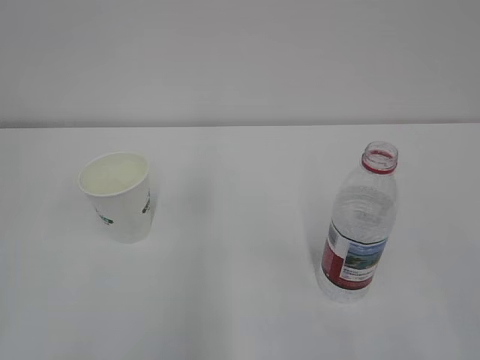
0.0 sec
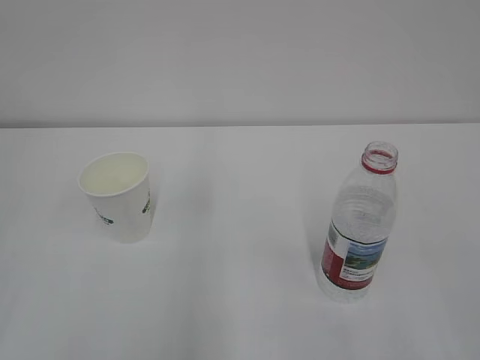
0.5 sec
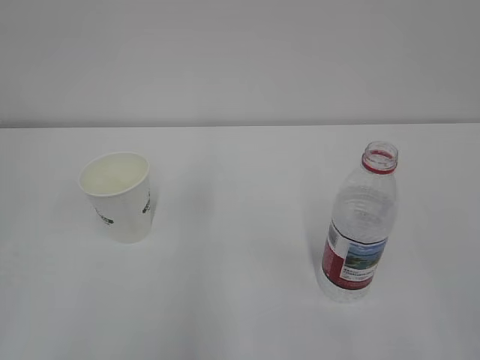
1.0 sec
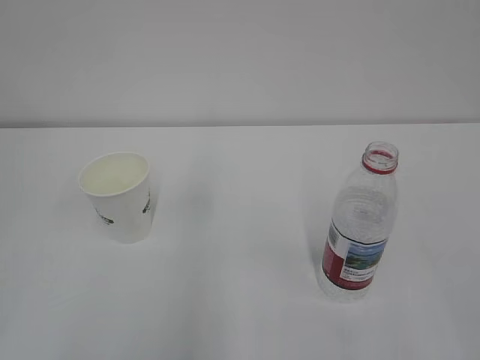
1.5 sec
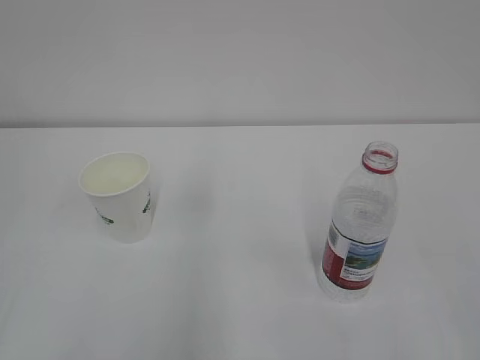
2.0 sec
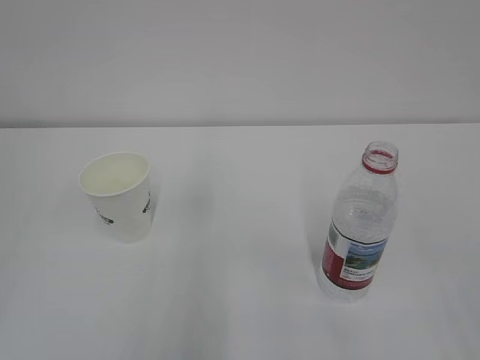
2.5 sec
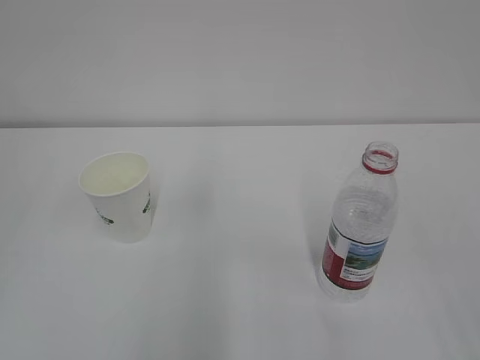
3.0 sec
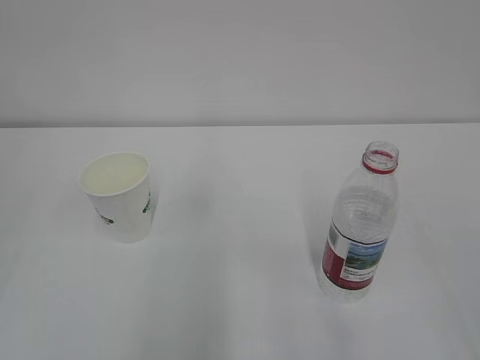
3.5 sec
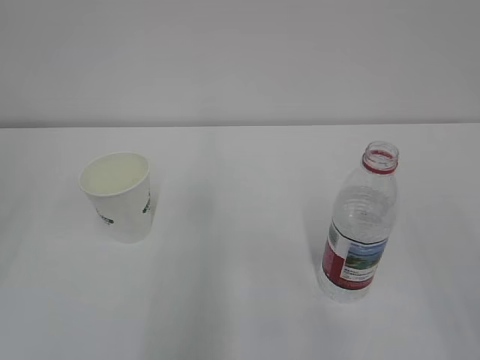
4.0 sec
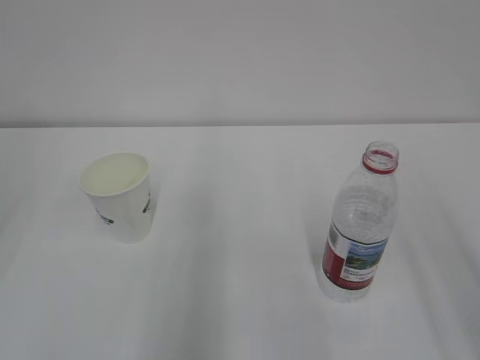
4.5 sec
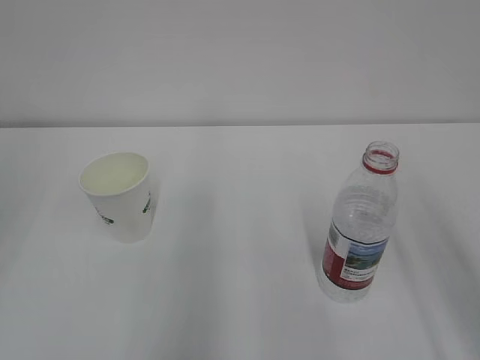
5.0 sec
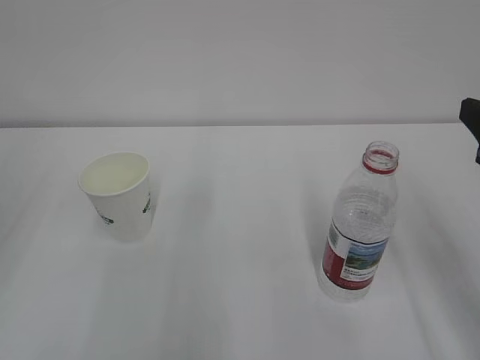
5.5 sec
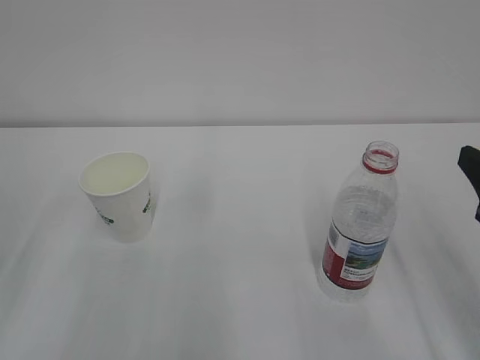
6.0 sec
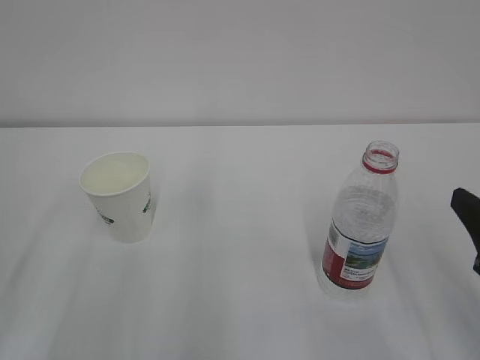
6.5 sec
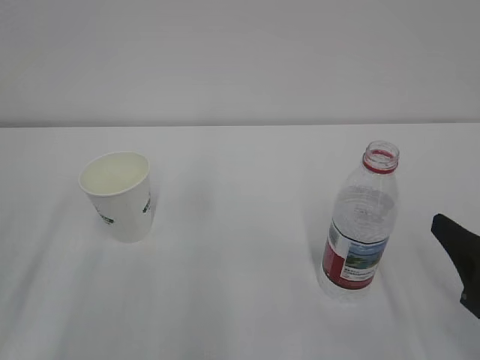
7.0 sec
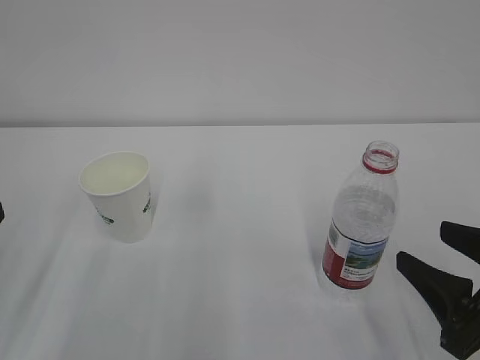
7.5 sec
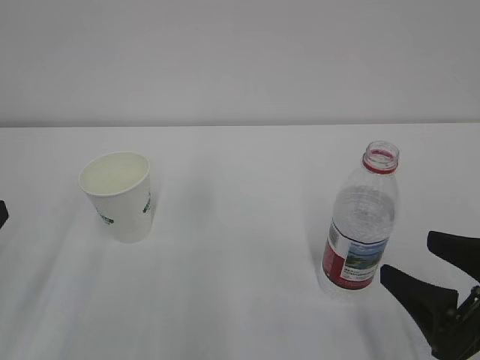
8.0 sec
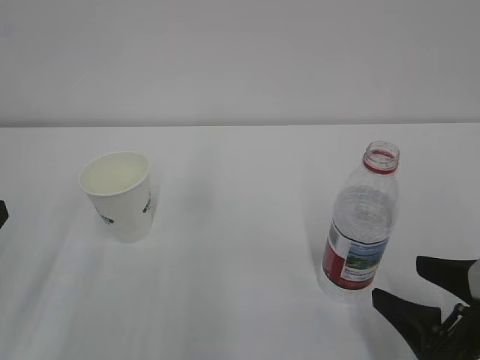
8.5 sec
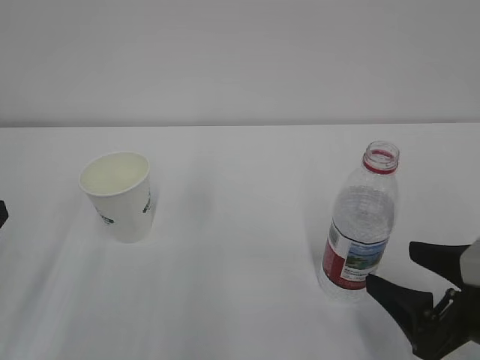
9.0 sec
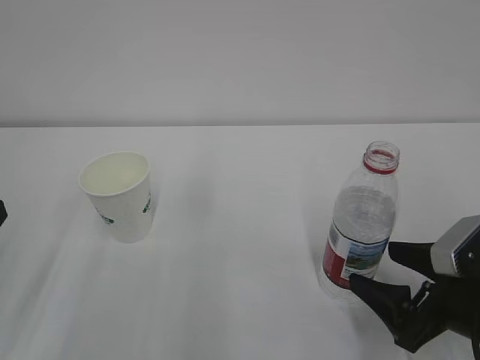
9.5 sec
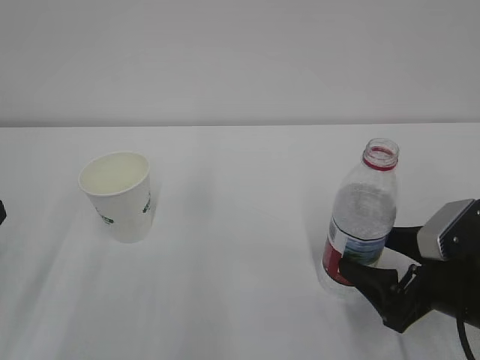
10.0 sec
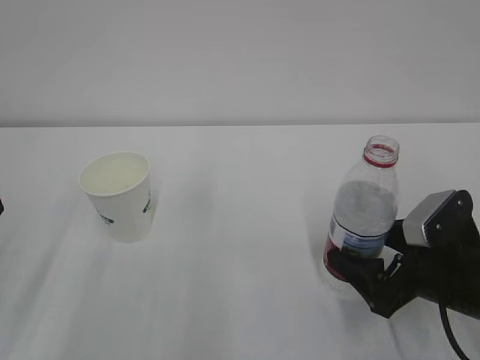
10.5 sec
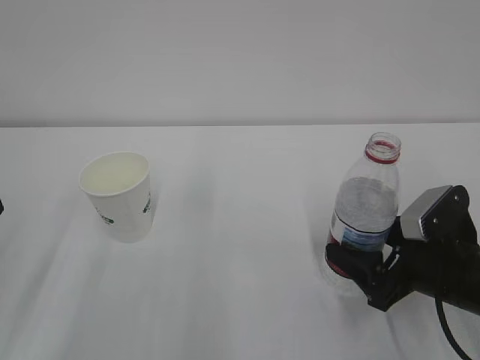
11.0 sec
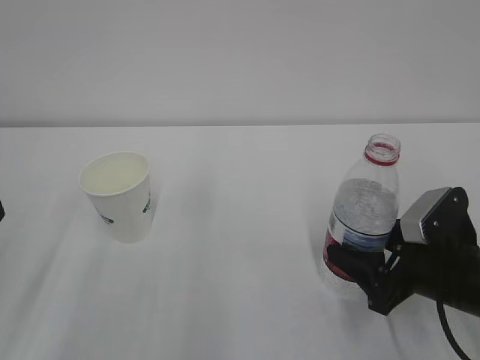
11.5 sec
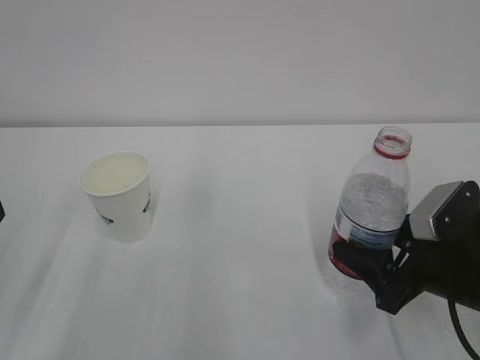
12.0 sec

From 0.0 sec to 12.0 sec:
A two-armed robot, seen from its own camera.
From 6.0 sec to 8.0 sec: The right gripper shifts about 5 cm downward, and opens.
From 8.0 sec to 10.0 sec: The right gripper goes roughly 5 cm forward.
From 10.0 sec to 12.0 sec: The right gripper closes its fingers.

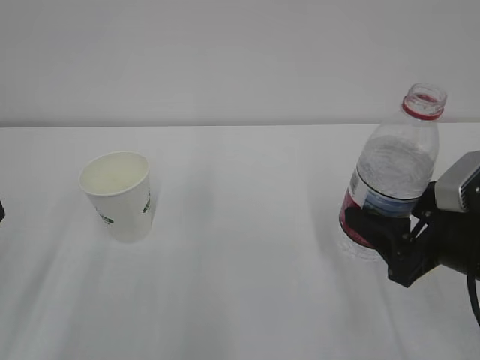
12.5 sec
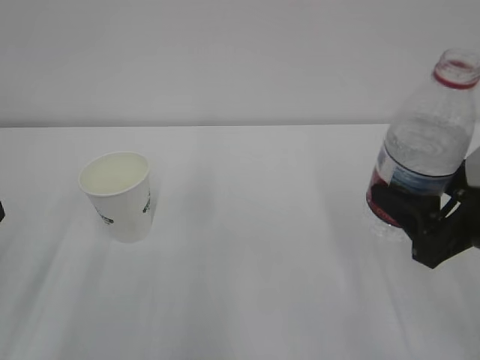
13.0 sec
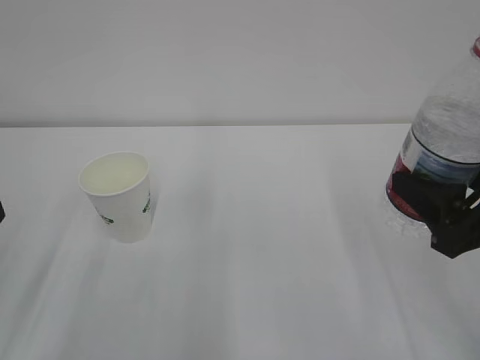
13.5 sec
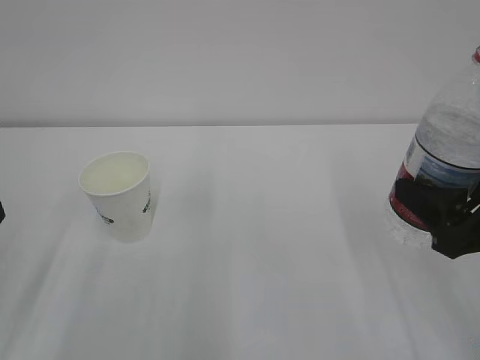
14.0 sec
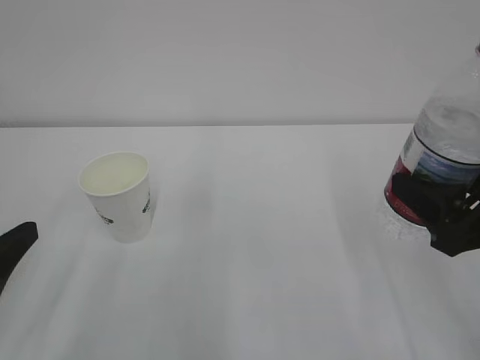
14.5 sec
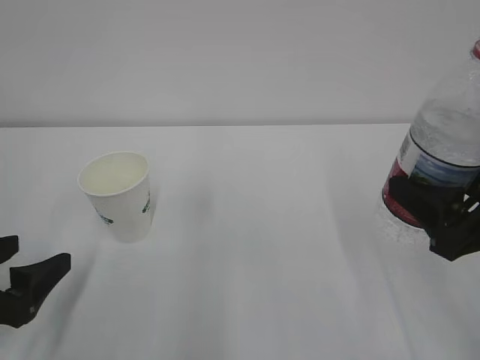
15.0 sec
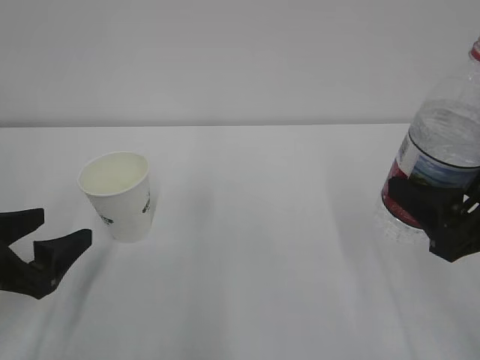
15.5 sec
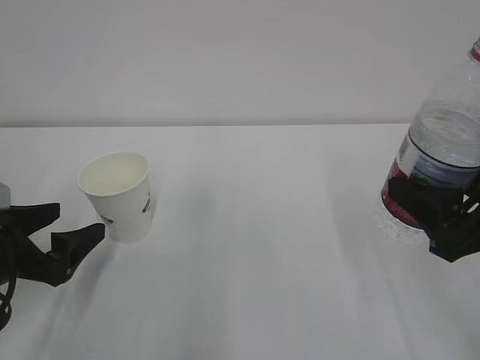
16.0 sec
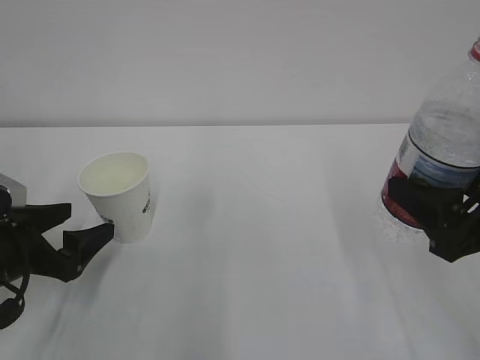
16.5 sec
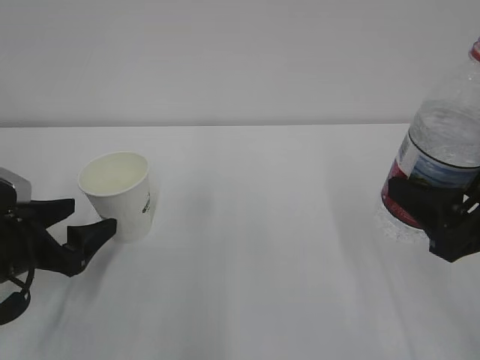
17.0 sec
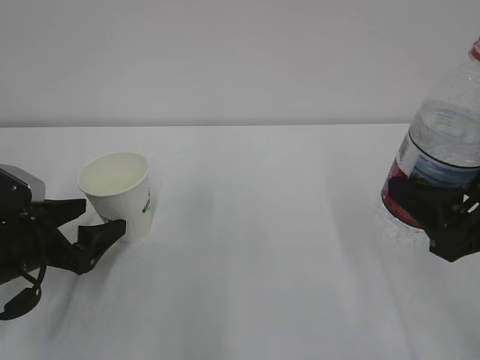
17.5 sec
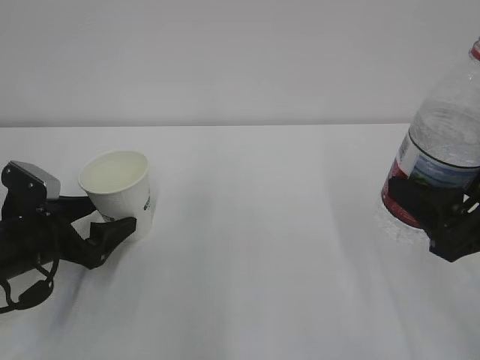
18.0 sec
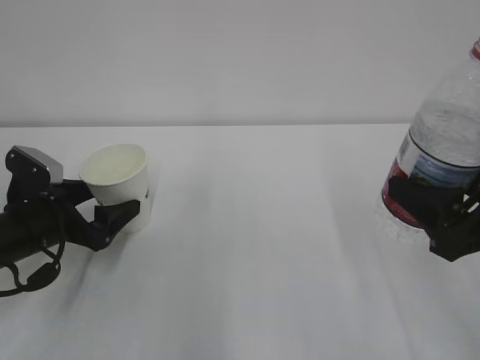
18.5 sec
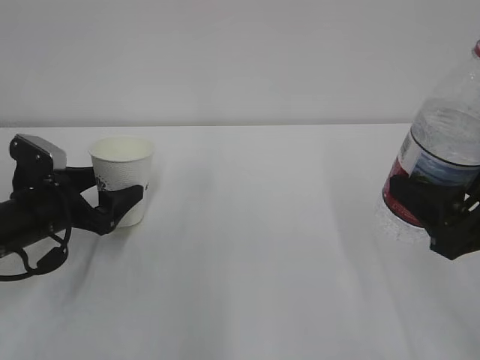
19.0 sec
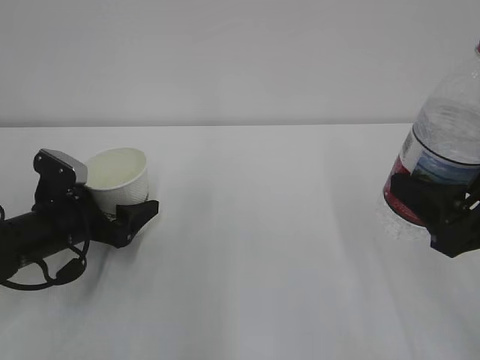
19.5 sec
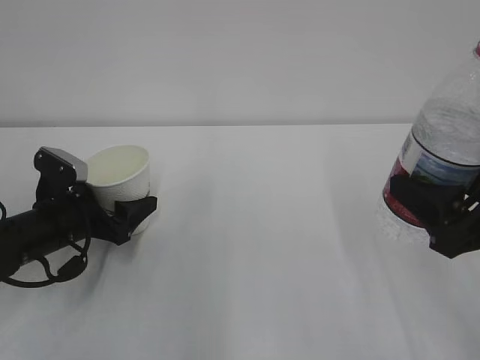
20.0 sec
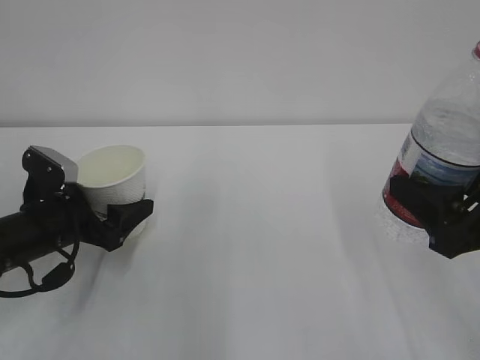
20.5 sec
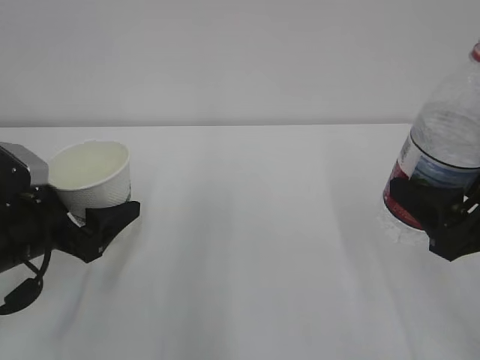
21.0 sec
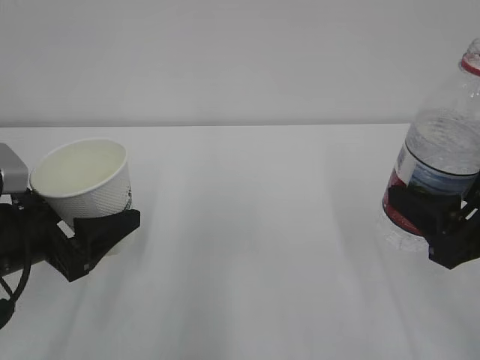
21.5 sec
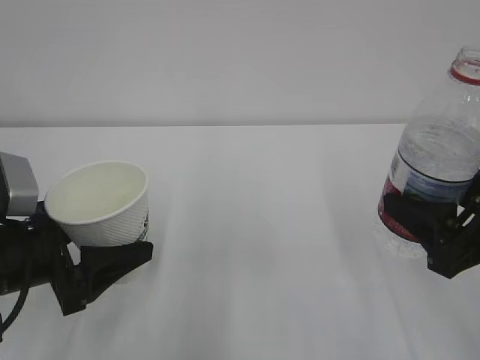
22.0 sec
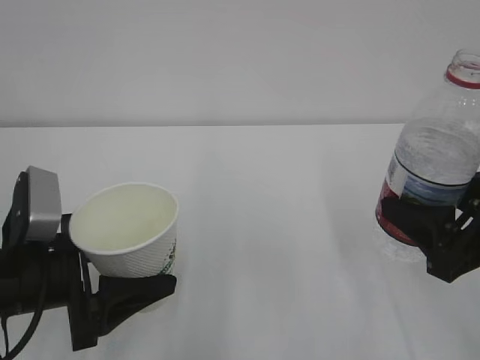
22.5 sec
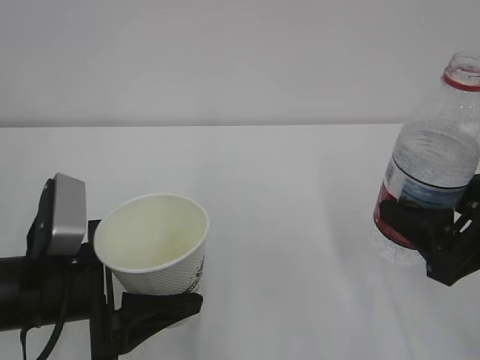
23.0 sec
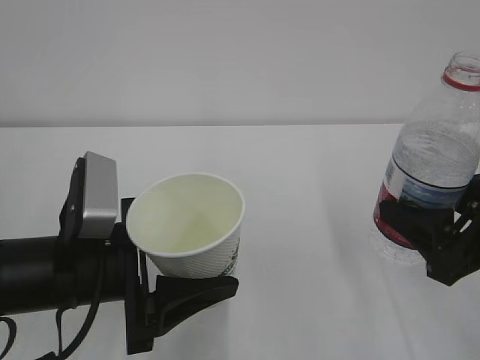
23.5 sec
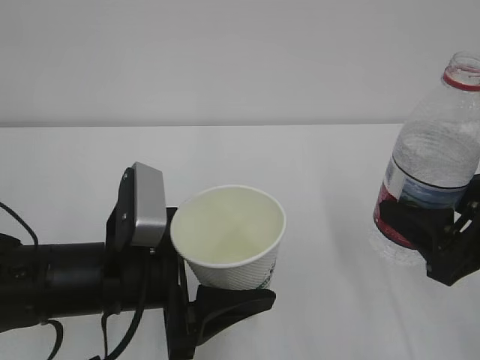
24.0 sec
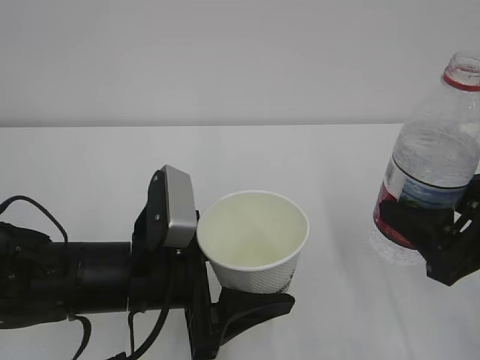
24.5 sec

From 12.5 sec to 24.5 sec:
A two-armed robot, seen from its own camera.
From 12.5 sec to 14.5 sec: The right gripper heads upward, covering some 5 cm.
From 14.5 sec to 16.5 sec: The left gripper goes approximately 10 cm forward and downward, and opens up.
From 16.5 sec to 18.5 sec: The left gripper travels forward by approximately 5 cm.
From 18.5 sec to 20.5 sec: The left gripper closes up.
From 20.5 sec to 22.5 sec: The left gripper shifts some 10 cm backward and upward.
From 22.5 sec to 24.5 sec: The left gripper is displaced to the right by about 10 cm.

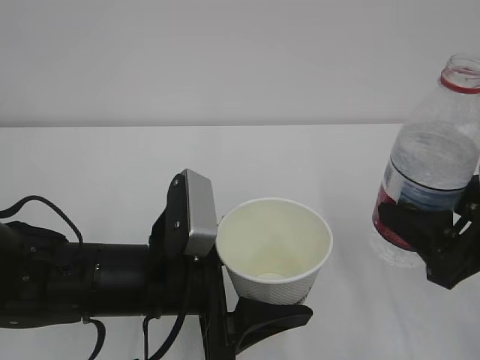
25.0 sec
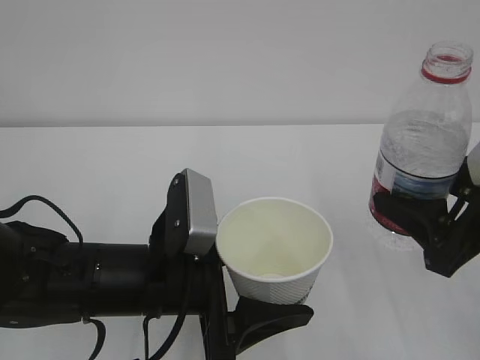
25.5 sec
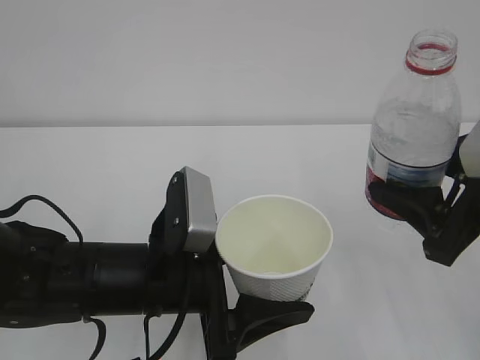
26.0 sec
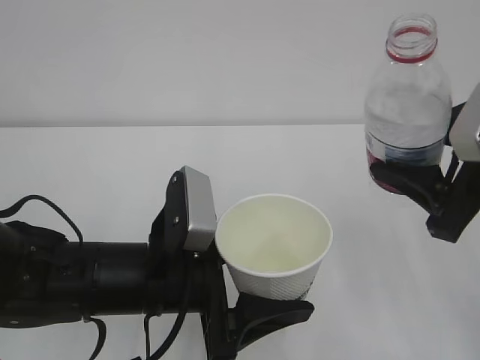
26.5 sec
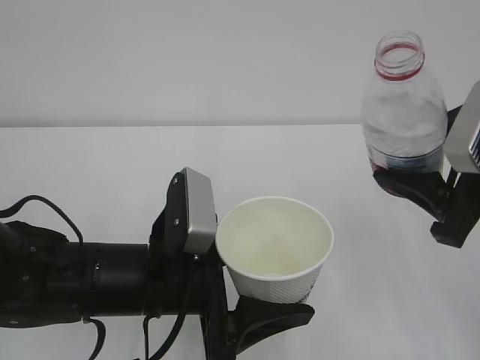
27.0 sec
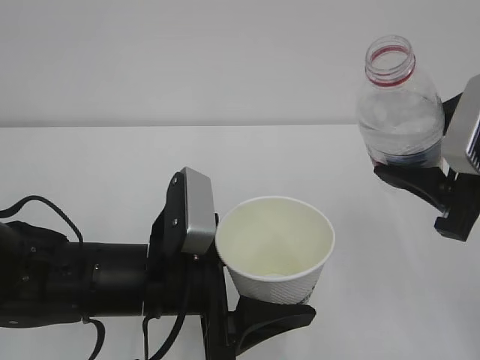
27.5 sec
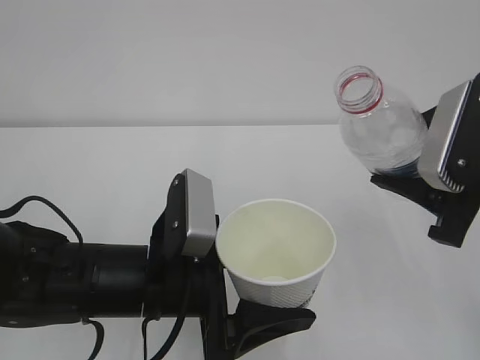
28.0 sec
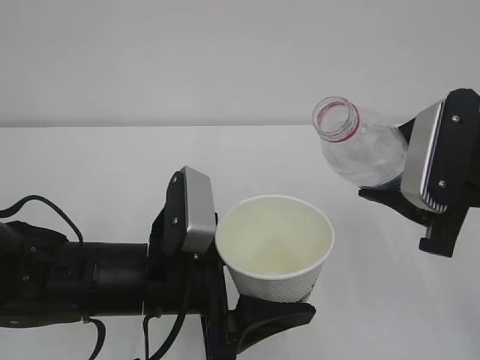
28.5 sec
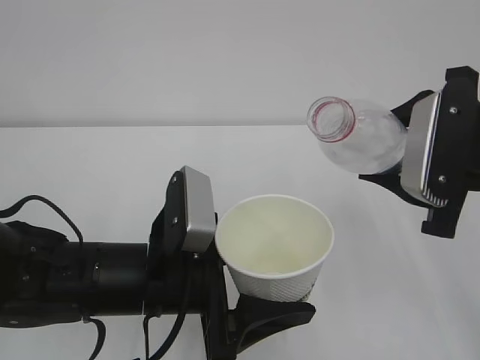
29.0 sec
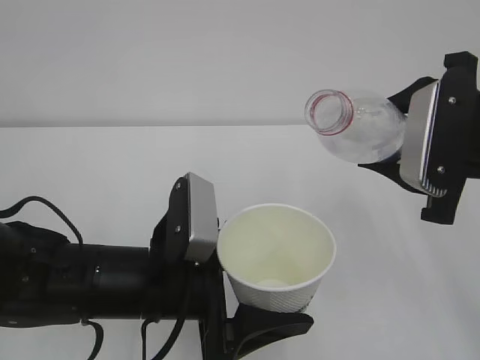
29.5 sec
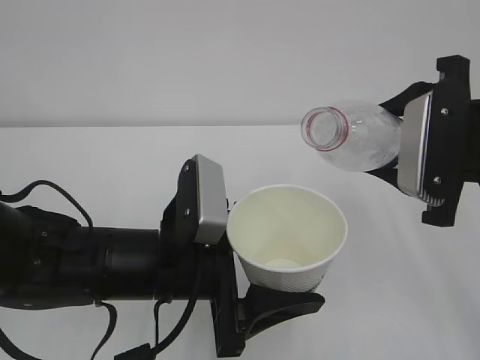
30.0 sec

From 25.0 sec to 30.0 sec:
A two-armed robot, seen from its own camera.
From 25.0 sec to 27.5 sec: The right gripper moves upward, some 5 cm.
